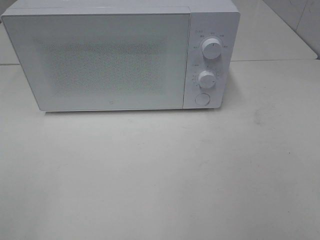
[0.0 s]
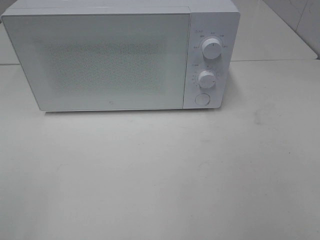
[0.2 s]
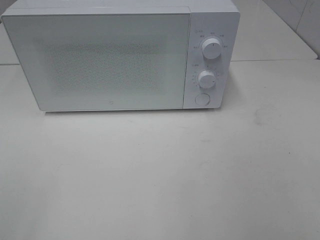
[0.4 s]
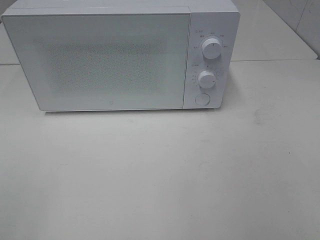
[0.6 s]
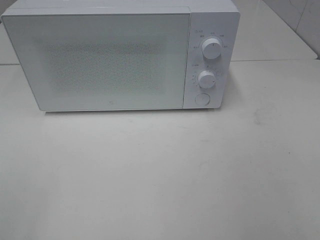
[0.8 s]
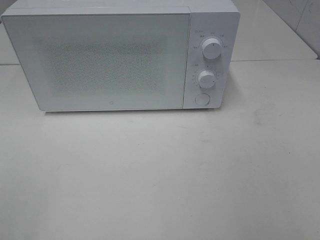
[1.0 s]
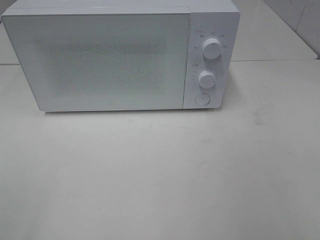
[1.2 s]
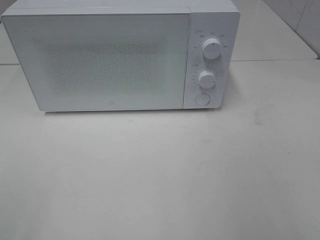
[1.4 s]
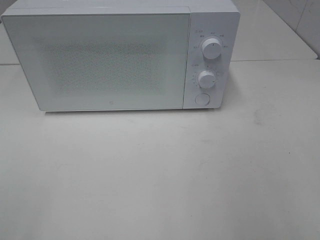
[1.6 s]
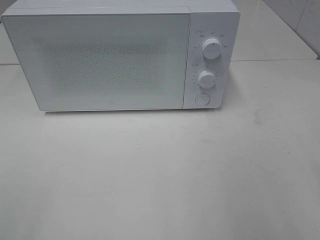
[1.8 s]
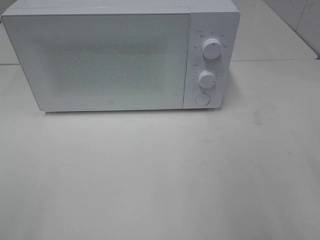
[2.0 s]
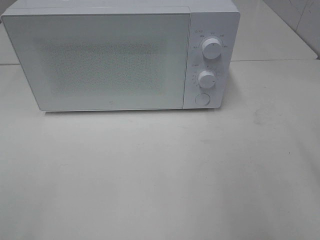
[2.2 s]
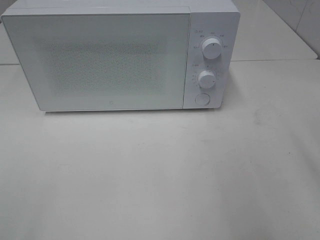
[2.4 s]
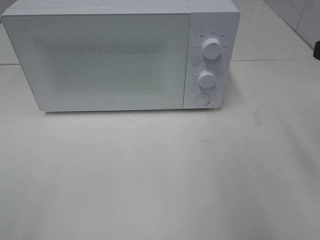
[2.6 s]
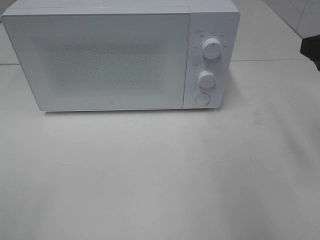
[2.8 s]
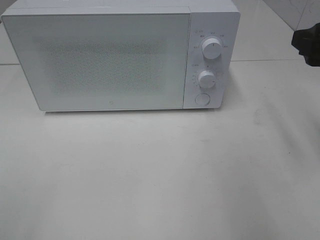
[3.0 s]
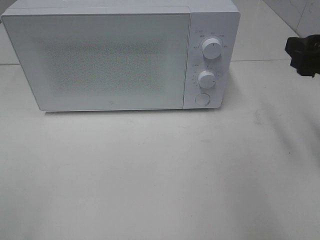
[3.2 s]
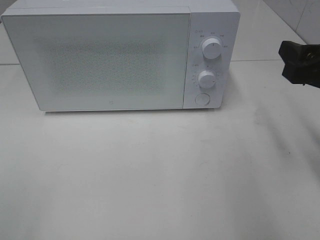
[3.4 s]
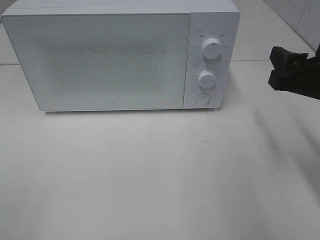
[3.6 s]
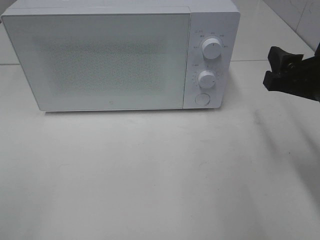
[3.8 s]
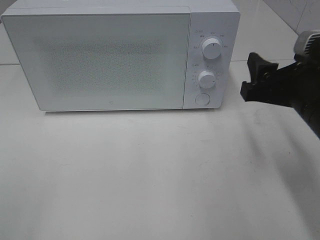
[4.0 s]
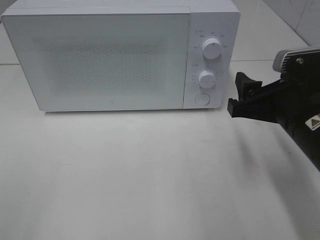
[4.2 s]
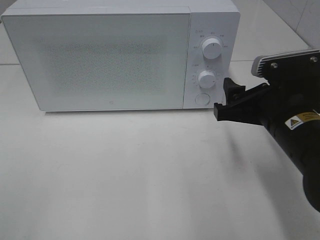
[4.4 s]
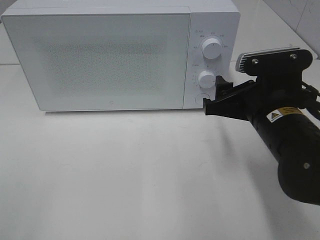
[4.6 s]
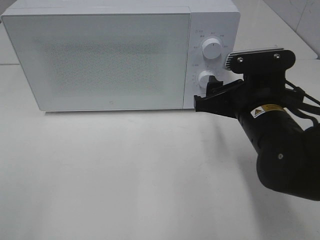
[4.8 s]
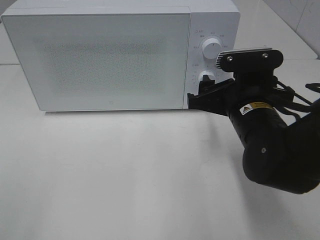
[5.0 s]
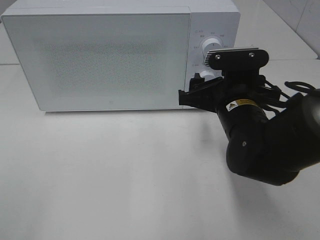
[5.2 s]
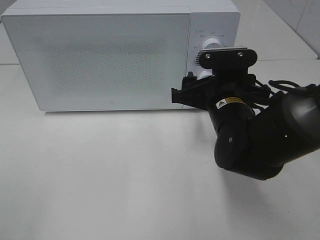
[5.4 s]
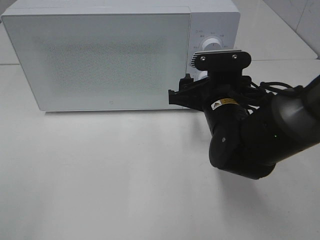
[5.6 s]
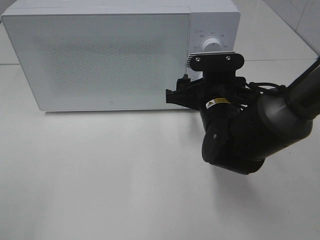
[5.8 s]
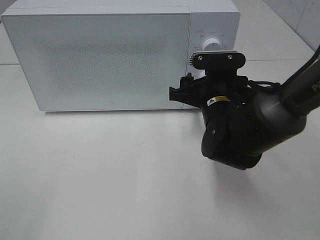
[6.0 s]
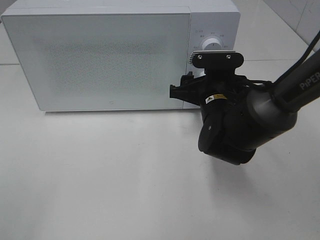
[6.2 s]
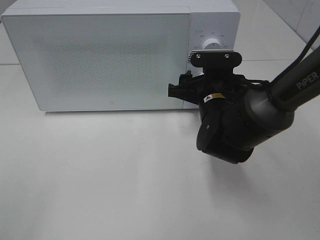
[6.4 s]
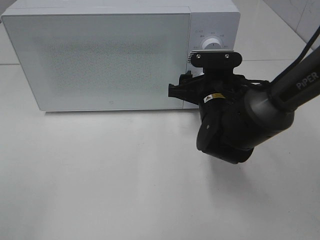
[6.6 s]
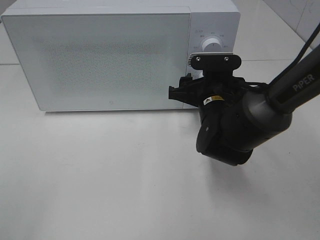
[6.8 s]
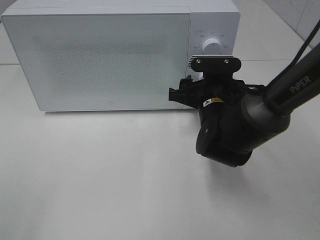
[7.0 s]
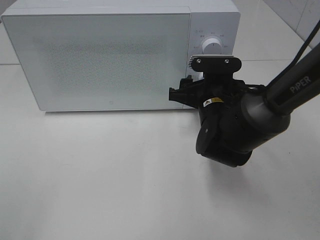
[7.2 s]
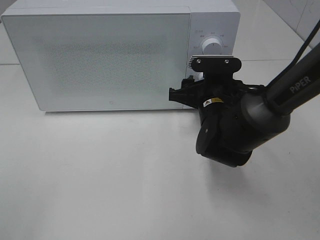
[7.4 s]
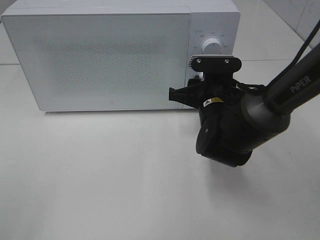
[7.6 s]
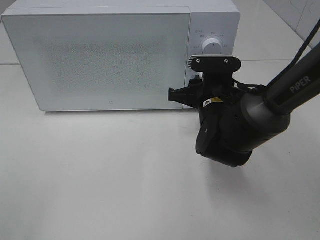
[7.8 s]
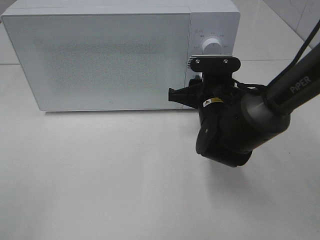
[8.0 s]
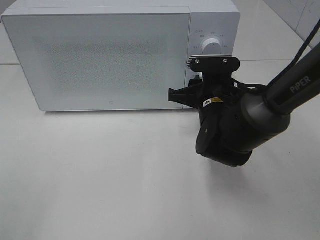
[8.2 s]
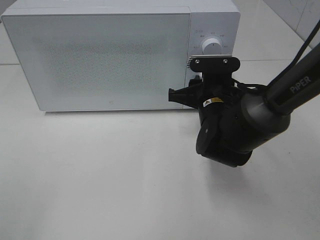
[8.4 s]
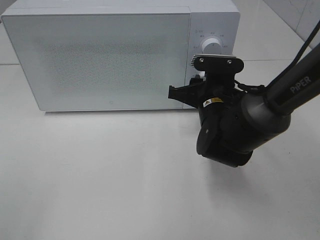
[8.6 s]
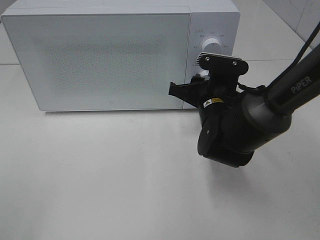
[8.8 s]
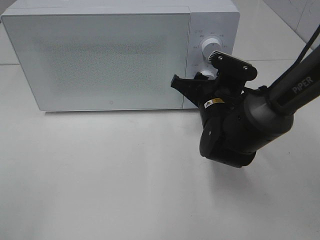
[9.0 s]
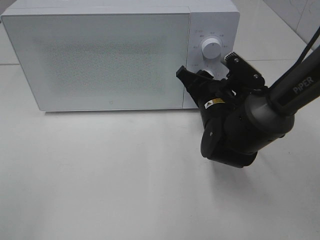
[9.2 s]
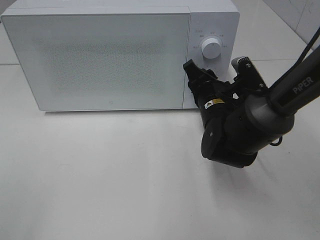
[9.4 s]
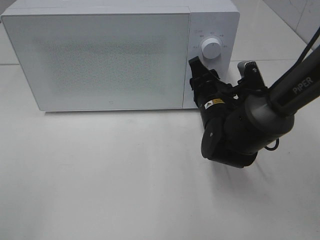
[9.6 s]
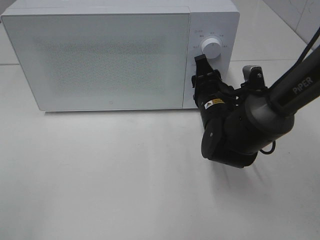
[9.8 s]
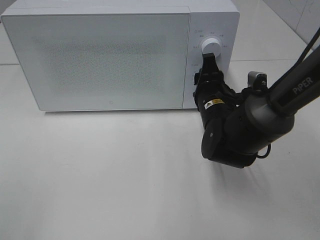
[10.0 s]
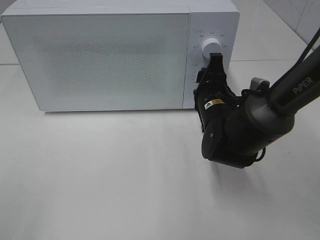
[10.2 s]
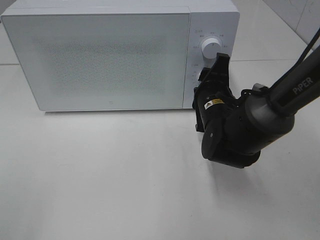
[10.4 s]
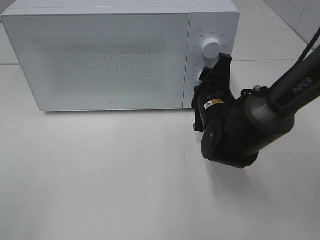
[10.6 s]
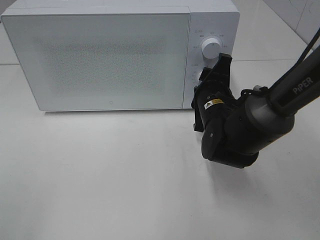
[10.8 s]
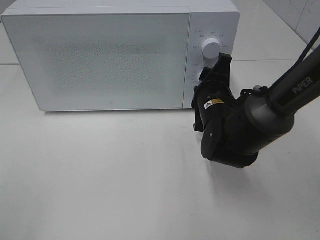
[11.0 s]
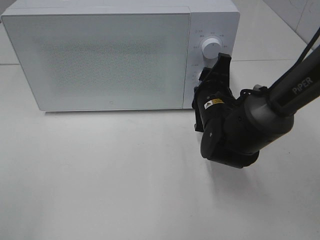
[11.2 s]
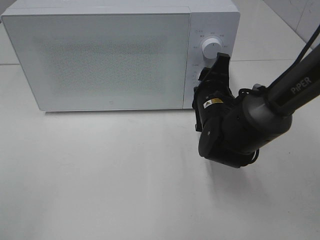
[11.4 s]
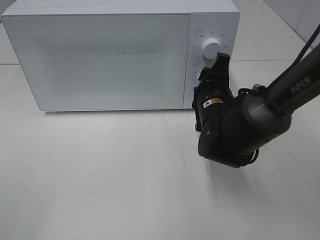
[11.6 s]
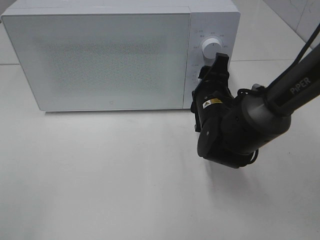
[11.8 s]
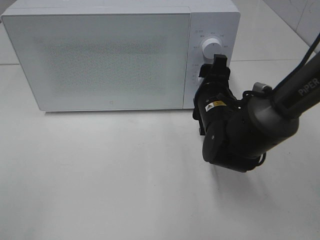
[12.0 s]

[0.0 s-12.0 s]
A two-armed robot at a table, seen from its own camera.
Task of the whole recording: Heat the burger.
Step, 0.0 to 12.0 s: Right hand: twist timer button.
1.6 to 3.0 s: The right gripper travels forward by roughly 15 cm.
3.0 to 4.4 s: The right gripper travels downward and to the left by some 15 cm.
4.4 to 6.0 s: The right gripper travels forward, to the left and downward by some 10 cm.
6.0 to 7.6 s: The right gripper closes.
10.4 to 12.0 s: The grippers make only small movements.

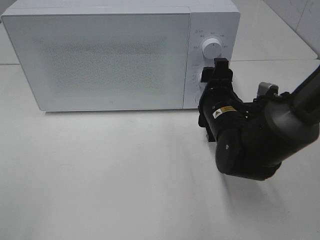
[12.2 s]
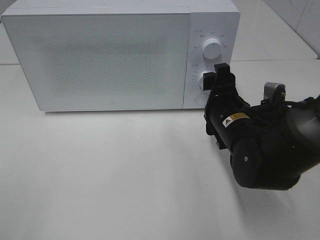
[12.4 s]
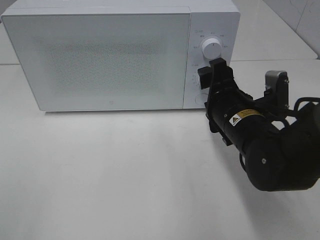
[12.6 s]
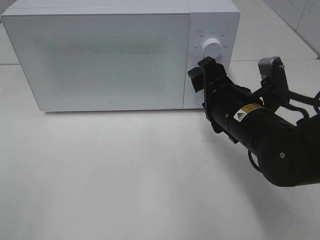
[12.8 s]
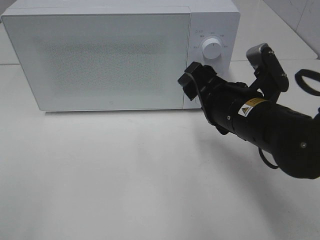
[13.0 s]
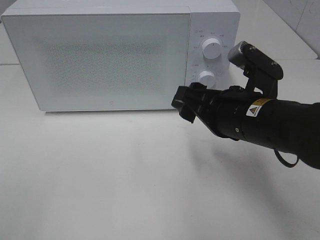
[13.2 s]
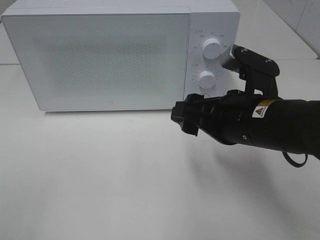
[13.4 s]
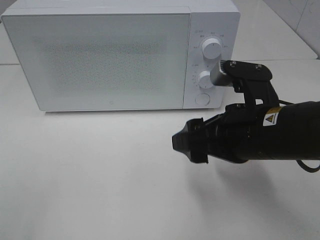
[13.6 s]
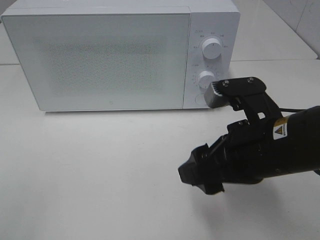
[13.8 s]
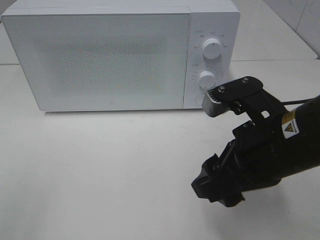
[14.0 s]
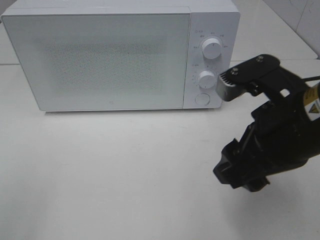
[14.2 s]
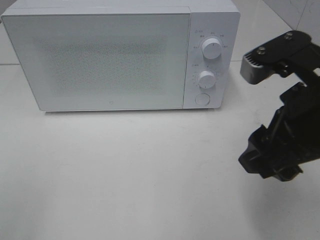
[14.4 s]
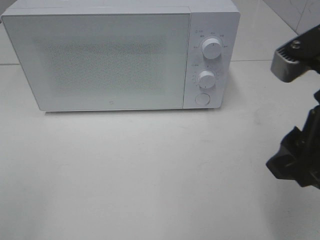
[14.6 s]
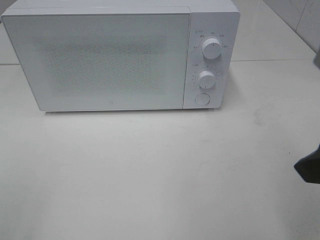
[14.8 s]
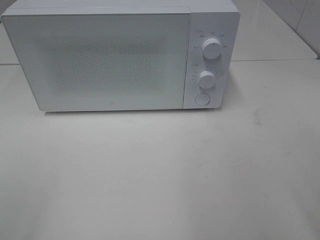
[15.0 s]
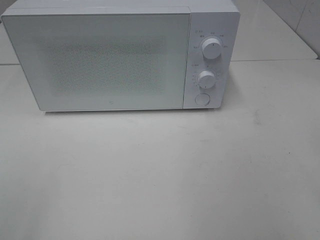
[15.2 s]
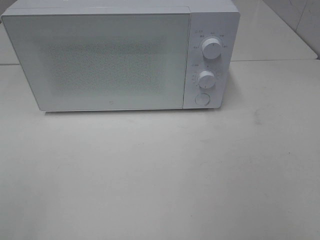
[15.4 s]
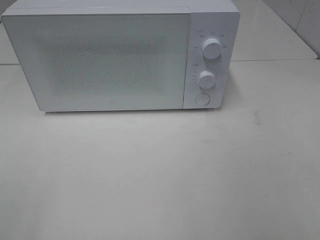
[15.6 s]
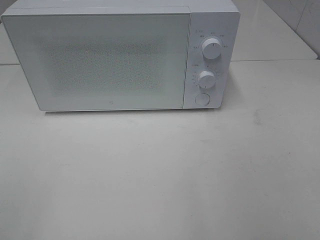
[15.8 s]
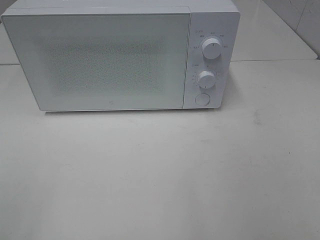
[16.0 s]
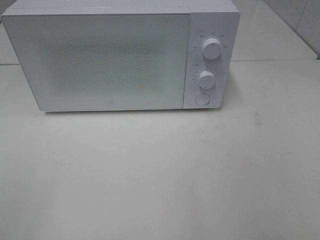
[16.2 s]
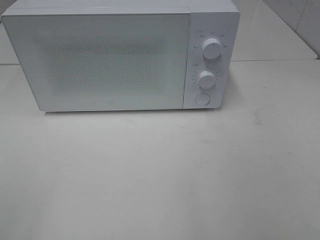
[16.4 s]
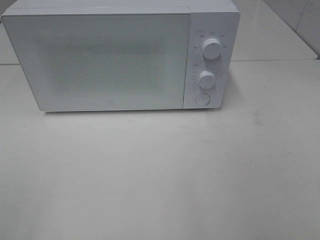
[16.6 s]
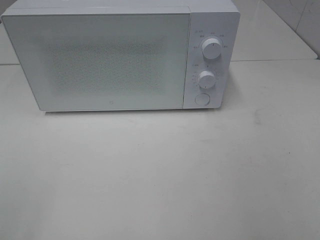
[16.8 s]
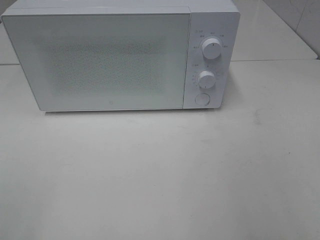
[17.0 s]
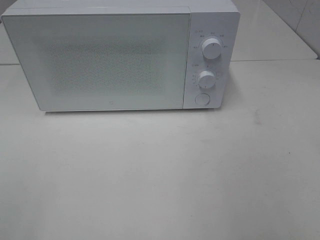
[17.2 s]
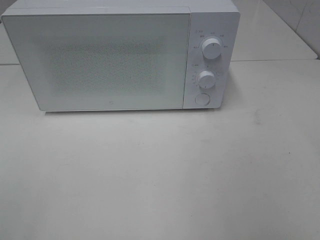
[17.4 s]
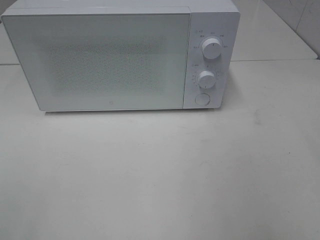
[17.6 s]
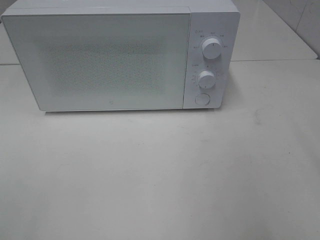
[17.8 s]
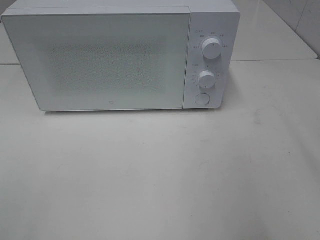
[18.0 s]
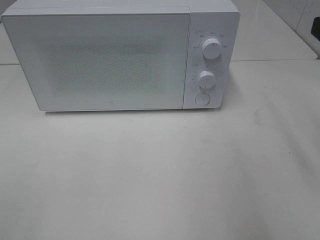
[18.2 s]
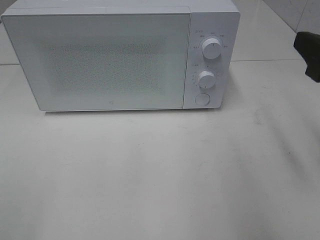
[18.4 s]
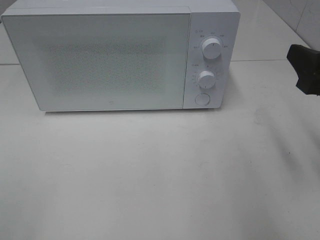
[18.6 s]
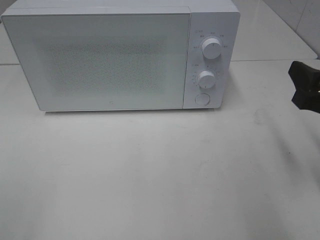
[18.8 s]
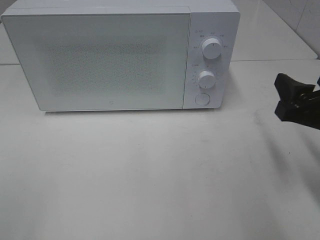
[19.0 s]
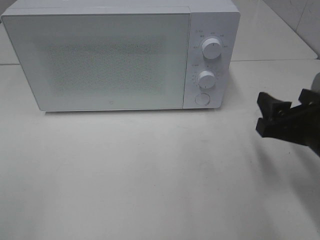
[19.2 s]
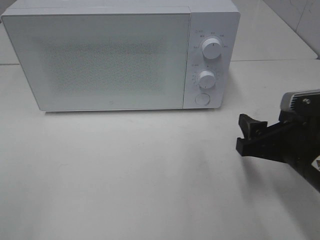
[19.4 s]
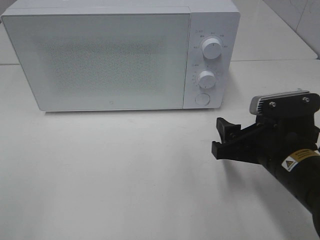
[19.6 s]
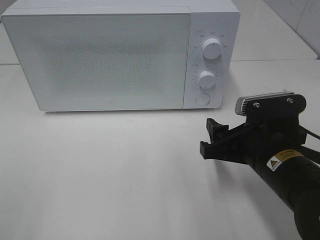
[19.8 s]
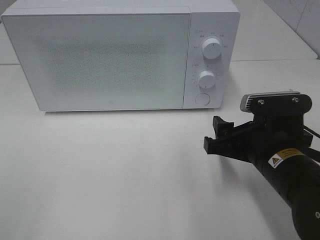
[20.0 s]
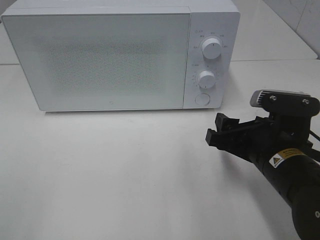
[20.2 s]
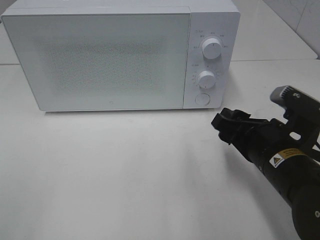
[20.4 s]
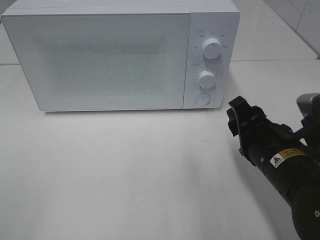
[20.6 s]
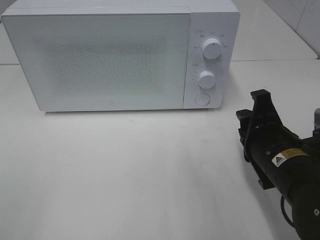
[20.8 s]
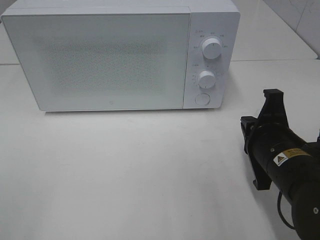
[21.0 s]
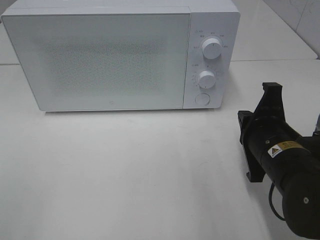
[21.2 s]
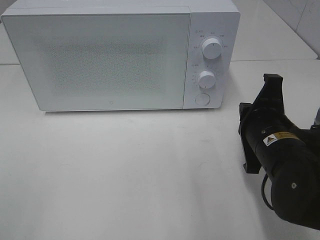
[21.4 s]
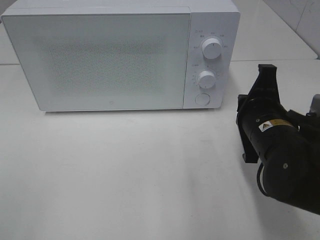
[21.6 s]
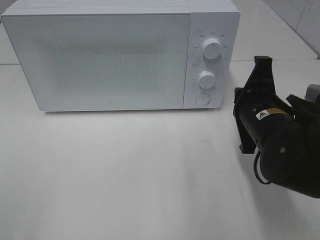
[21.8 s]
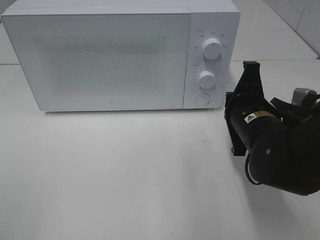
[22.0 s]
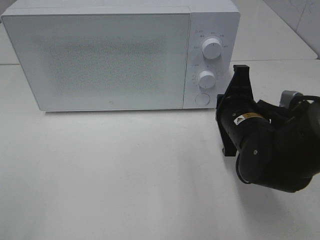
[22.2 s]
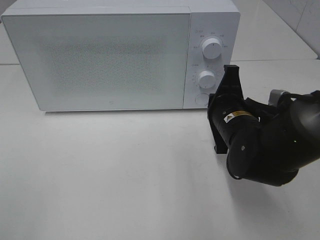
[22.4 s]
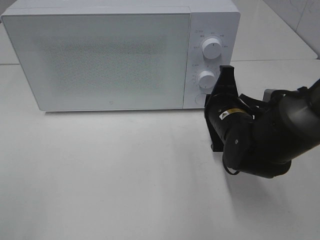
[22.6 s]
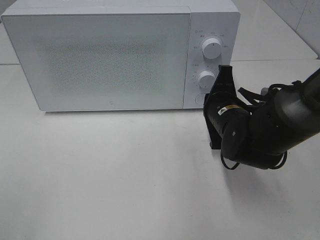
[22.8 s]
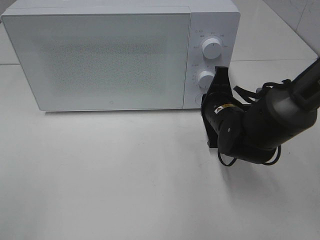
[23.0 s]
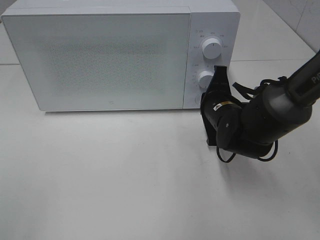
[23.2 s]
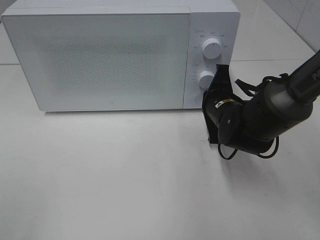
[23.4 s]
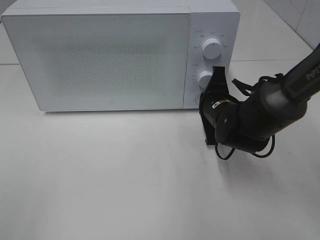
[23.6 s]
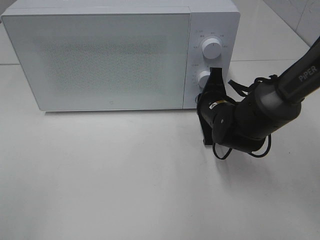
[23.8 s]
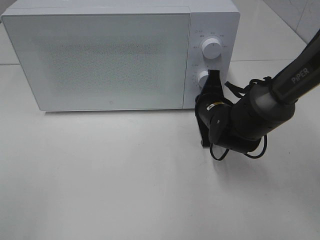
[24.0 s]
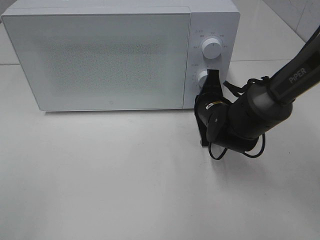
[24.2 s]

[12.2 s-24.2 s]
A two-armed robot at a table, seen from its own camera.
Task of the whole recording: Heat the burger.
12.2 to 13.8 s: The right gripper goes approximately 15 cm backward and upward.
13.8 to 15.2 s: The right gripper goes some 20 cm upward, to the right and backward.
18.2 to 19.8 s: The right gripper shifts some 20 cm downward and to the left.
19.8 to 21.2 s: The right gripper closes its fingers.
21.2 to 22.6 s: The right gripper moves forward, roughly 10 cm.
22.6 to 24.2 s: The right gripper shifts roughly 5 cm forward.
